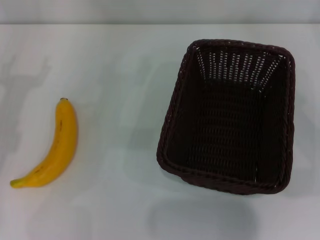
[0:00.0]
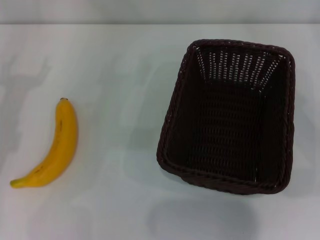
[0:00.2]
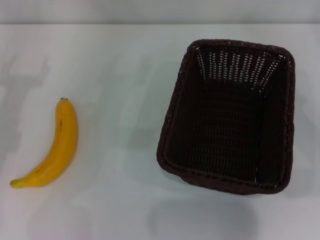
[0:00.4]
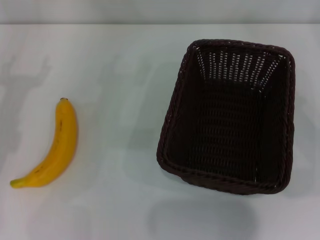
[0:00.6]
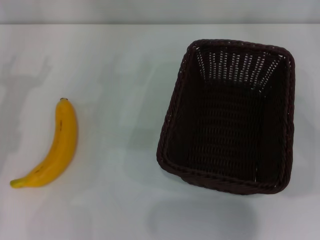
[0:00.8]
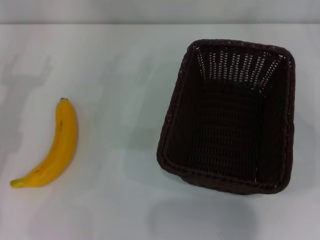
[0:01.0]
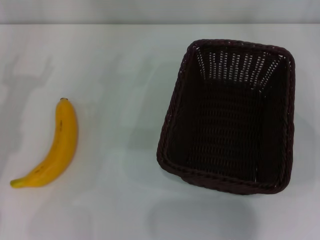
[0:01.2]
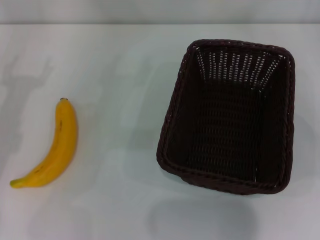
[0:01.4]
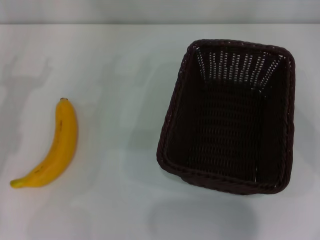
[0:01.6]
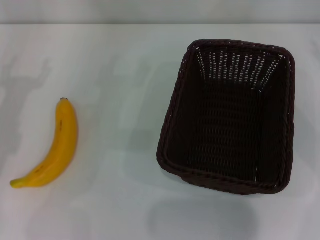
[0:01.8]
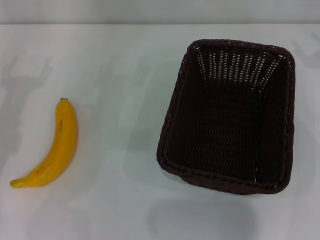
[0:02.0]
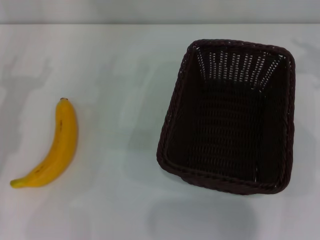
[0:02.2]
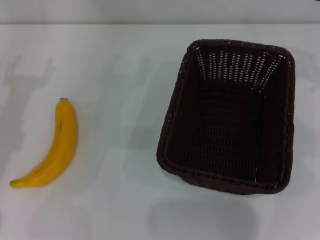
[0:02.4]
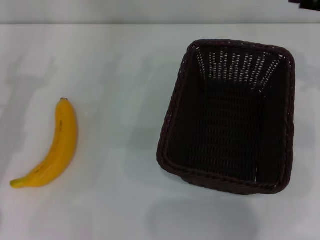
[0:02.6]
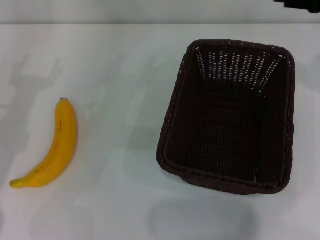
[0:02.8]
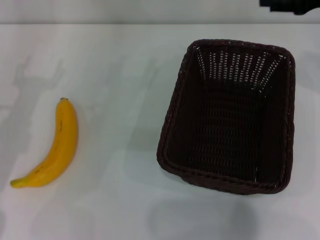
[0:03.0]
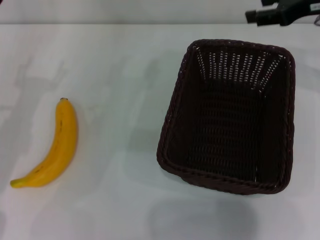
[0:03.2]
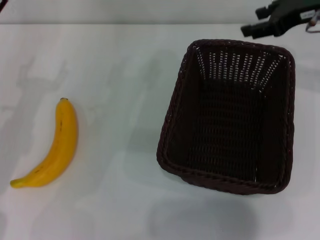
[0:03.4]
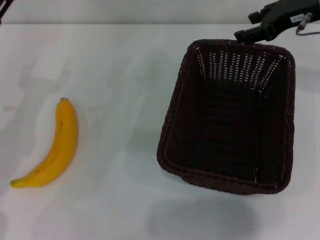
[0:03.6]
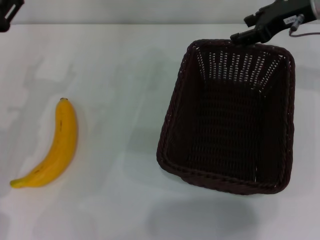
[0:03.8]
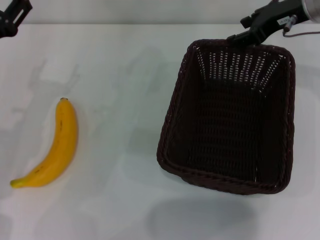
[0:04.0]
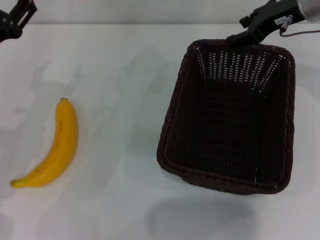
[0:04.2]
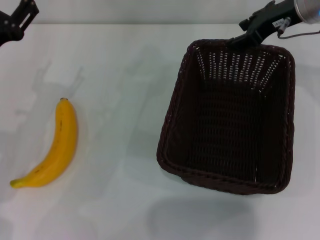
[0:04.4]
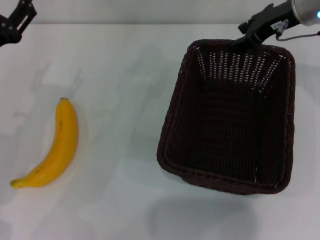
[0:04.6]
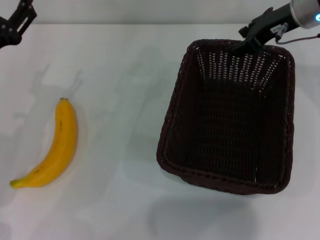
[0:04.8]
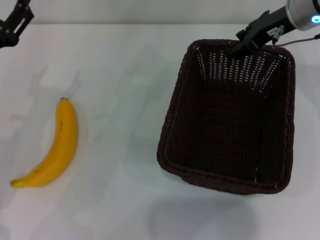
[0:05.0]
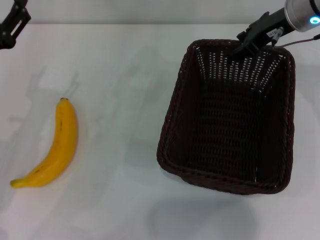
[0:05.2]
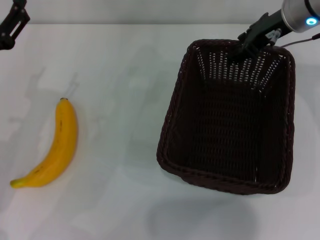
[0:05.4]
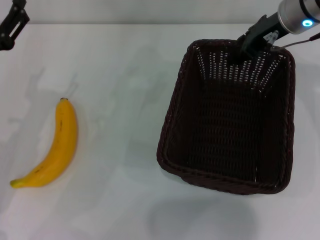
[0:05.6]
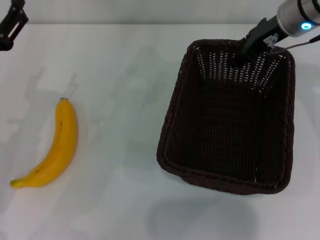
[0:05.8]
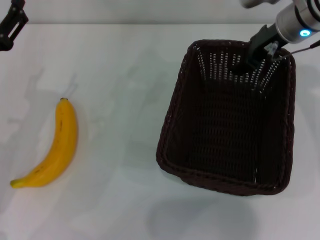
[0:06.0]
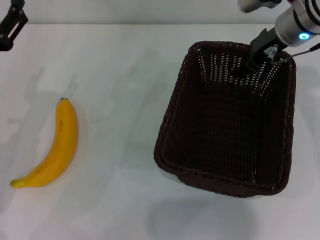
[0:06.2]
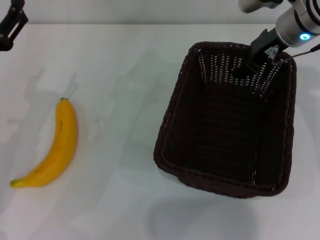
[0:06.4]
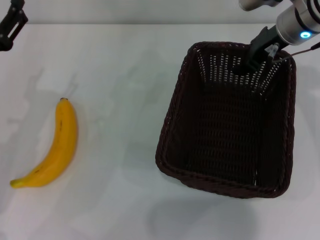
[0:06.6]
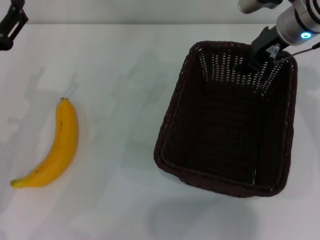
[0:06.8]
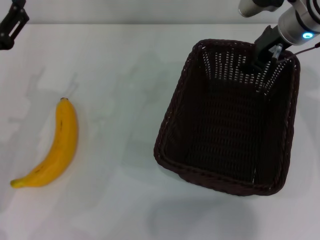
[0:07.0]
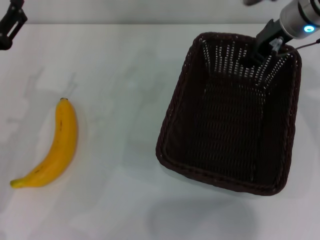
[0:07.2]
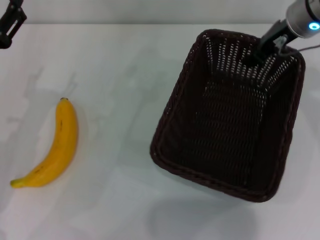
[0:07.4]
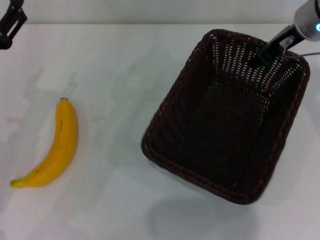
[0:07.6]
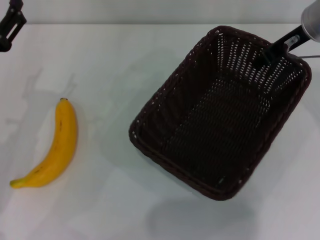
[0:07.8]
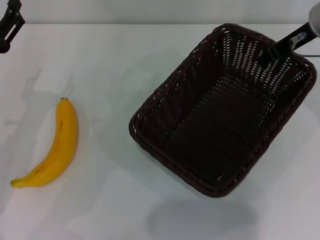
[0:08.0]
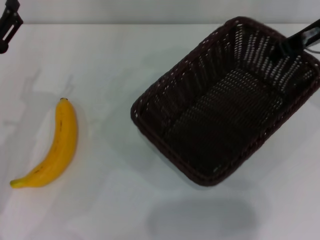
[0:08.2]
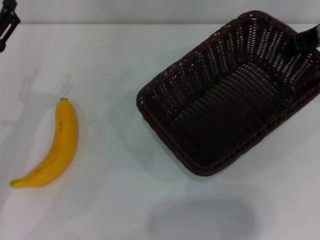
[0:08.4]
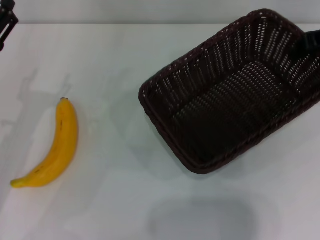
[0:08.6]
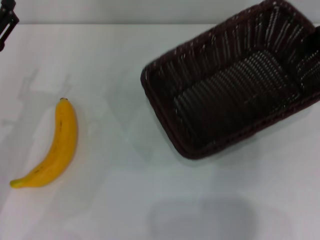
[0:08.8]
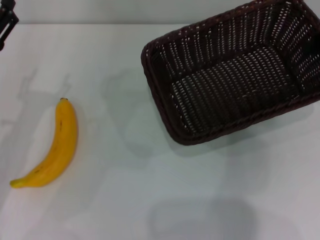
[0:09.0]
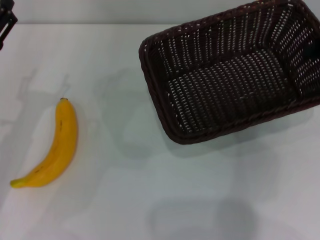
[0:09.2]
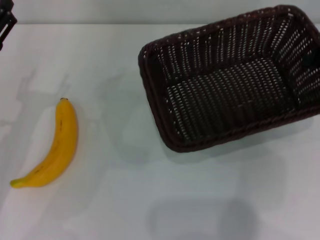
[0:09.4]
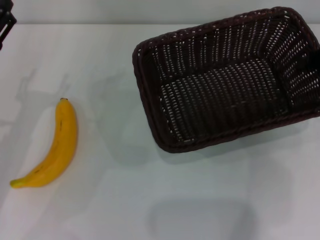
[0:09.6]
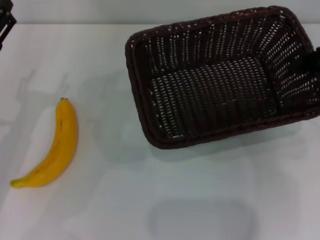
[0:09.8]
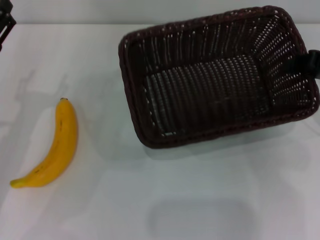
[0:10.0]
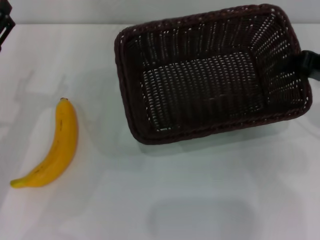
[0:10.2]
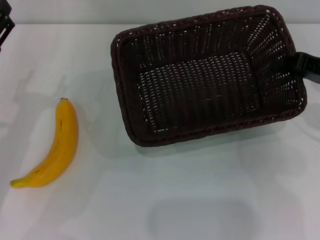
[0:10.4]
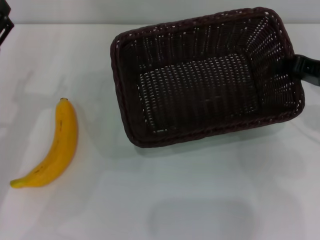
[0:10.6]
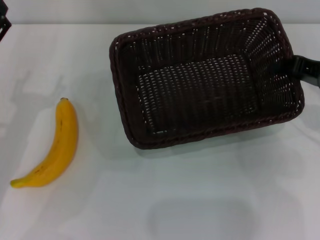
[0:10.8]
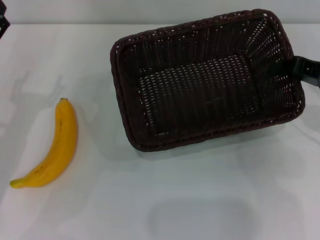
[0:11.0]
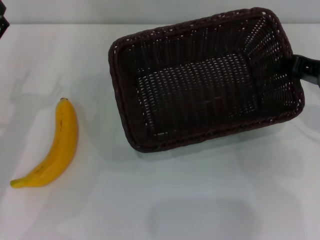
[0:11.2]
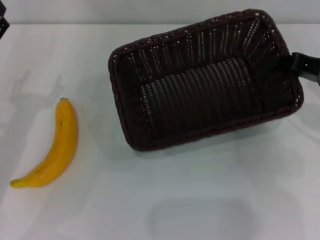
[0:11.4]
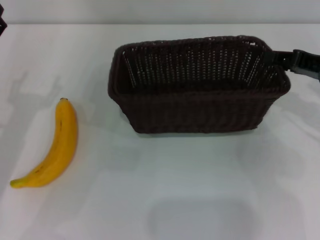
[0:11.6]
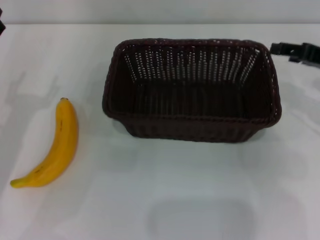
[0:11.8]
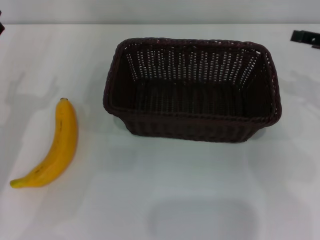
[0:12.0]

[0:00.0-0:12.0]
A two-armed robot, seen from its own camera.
Step, 0:00.0 to 0:08.0: Pick up the dark basket with the right gripper.
Step, 0:08.2 to 0:11.6: Place the dark basket in the center of view with the right gripper.
0:01.6 to 0:03.0: The right gripper shifts about 15 cm to the left, forward and upward.
0:03.0 to 0:04.4: The right gripper is displaced to the left by some 10 cm.
0:04.4 to 0:06.0: The grippers move only a little.
0:06.0 to 0:07.6: The right gripper closes up.
0:07.6 to 0:09.0: The right gripper goes roughly 15 cm to the right and backward.
0:09.0 to 0:10.4: The right gripper moves downward, some 5 cm.
0:10.4 to 0:12.0: The right gripper opens up.

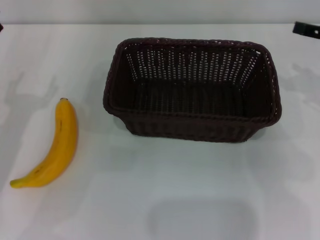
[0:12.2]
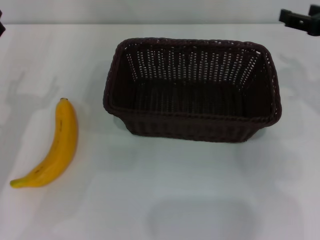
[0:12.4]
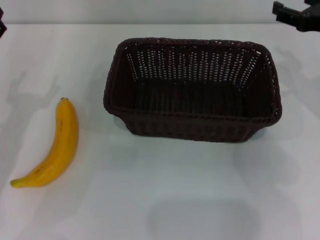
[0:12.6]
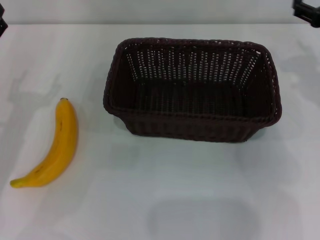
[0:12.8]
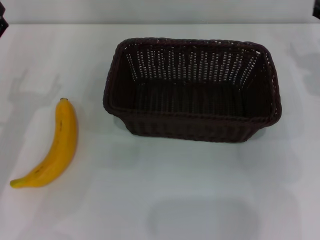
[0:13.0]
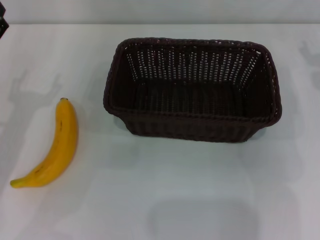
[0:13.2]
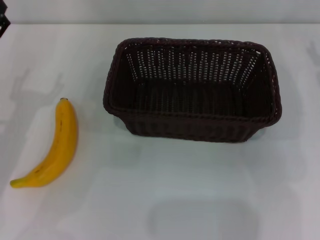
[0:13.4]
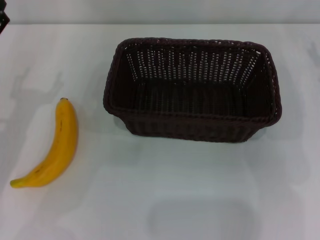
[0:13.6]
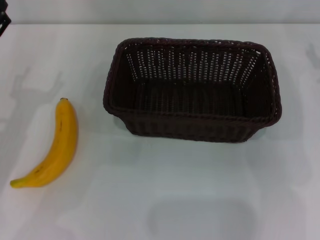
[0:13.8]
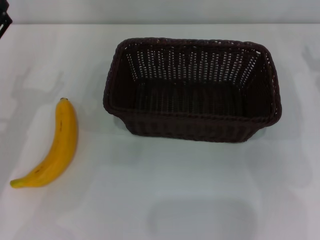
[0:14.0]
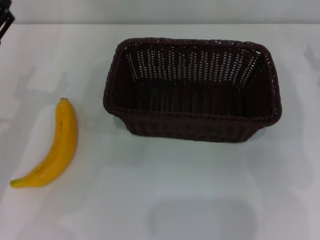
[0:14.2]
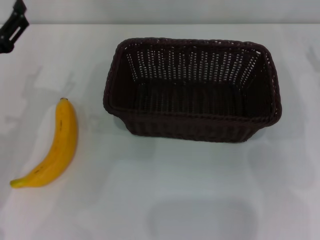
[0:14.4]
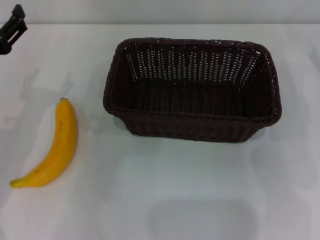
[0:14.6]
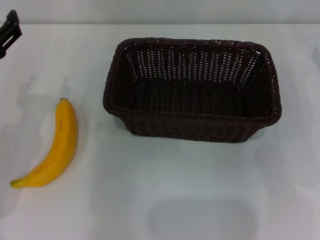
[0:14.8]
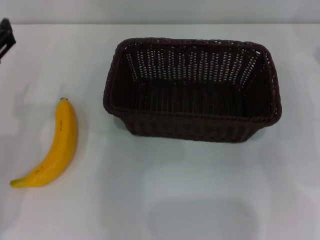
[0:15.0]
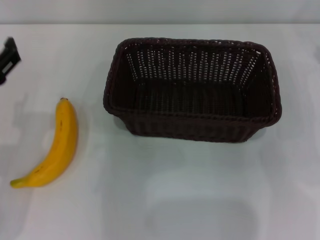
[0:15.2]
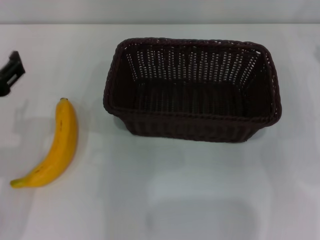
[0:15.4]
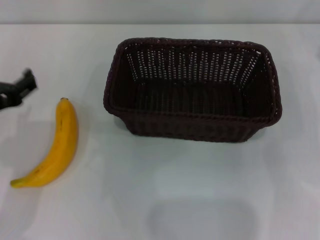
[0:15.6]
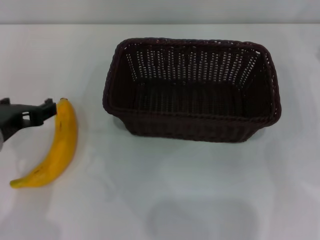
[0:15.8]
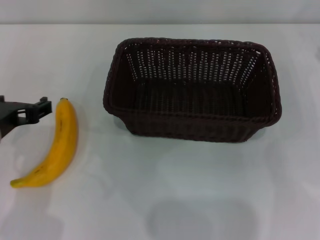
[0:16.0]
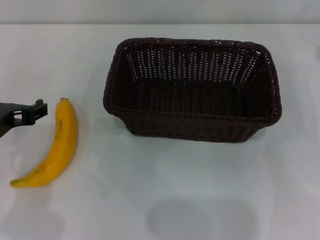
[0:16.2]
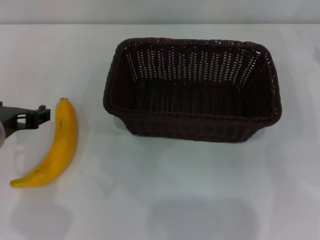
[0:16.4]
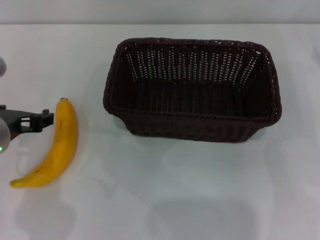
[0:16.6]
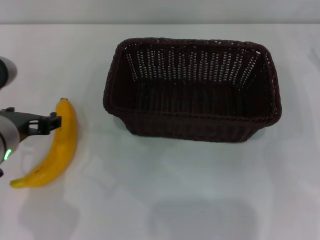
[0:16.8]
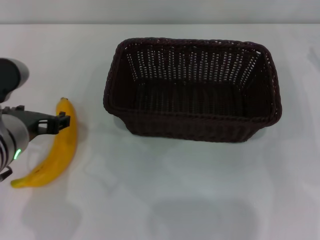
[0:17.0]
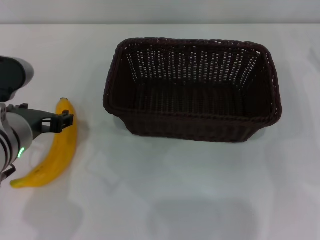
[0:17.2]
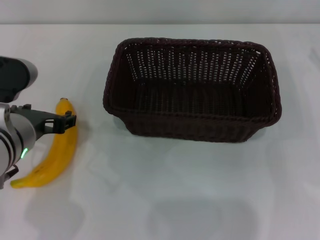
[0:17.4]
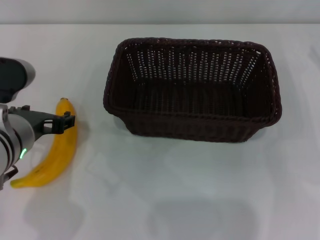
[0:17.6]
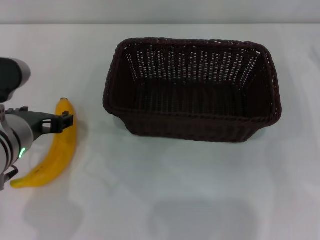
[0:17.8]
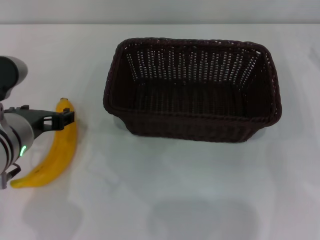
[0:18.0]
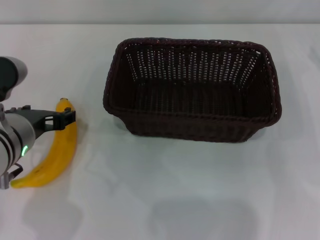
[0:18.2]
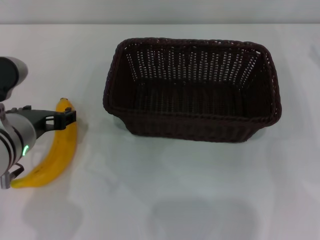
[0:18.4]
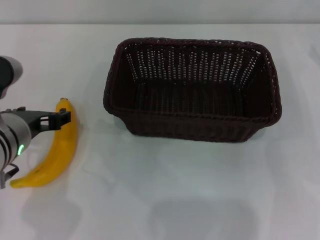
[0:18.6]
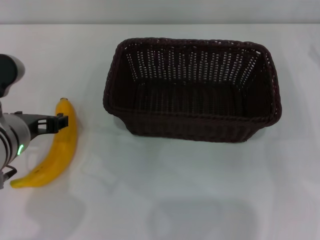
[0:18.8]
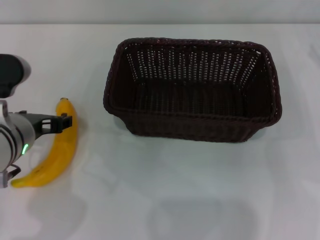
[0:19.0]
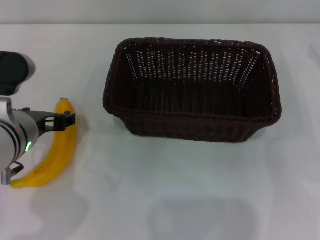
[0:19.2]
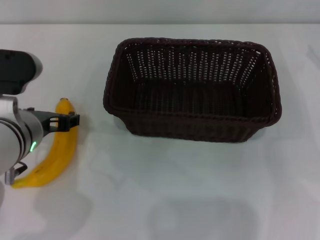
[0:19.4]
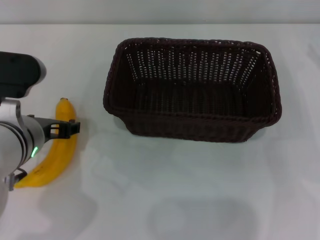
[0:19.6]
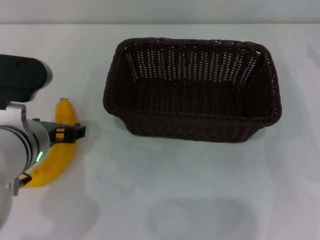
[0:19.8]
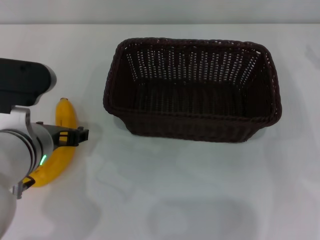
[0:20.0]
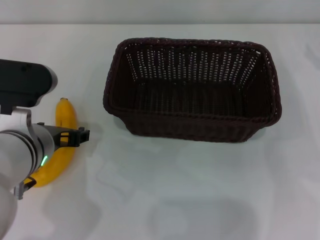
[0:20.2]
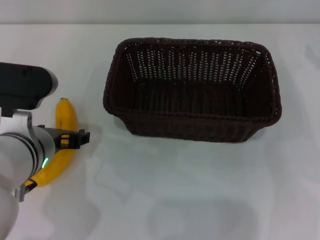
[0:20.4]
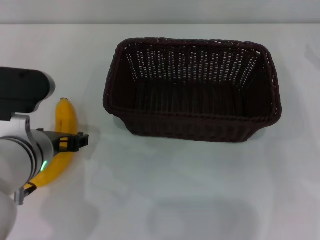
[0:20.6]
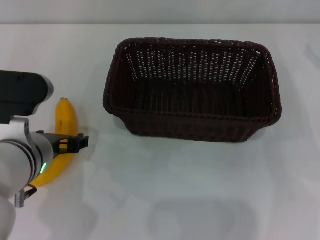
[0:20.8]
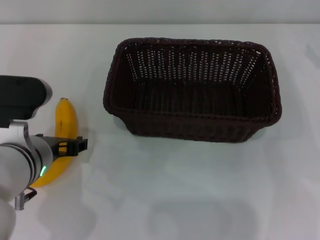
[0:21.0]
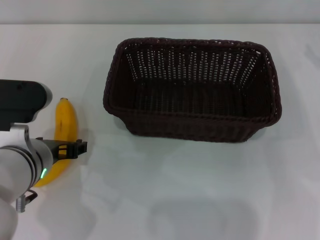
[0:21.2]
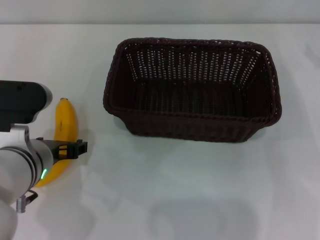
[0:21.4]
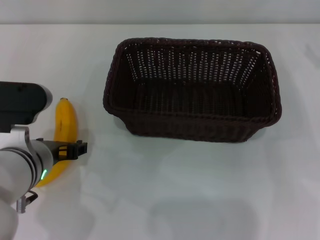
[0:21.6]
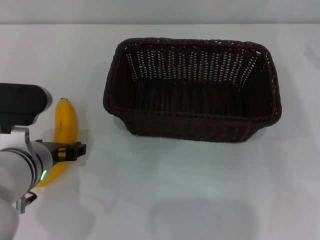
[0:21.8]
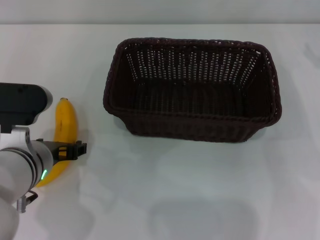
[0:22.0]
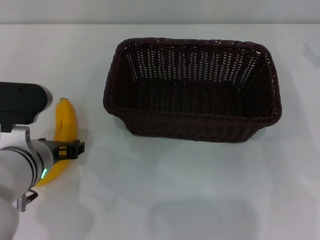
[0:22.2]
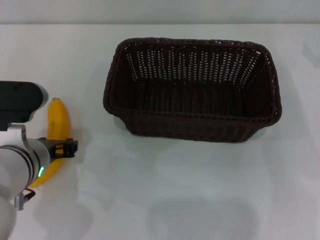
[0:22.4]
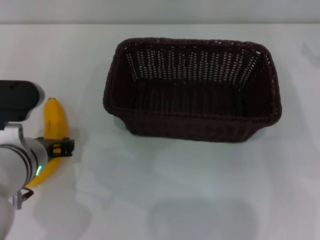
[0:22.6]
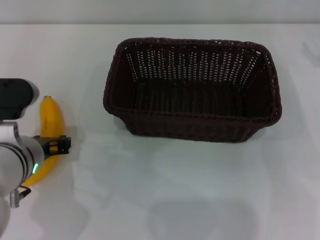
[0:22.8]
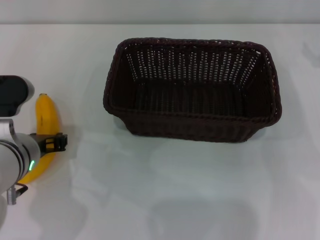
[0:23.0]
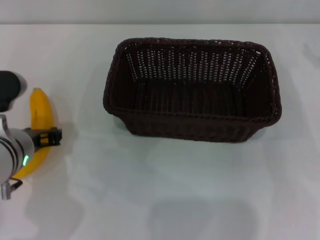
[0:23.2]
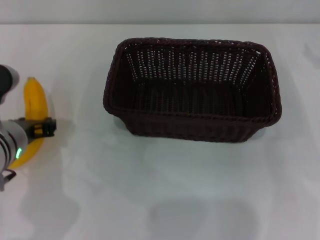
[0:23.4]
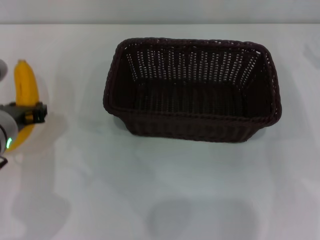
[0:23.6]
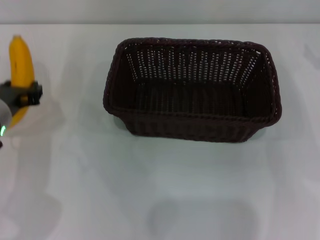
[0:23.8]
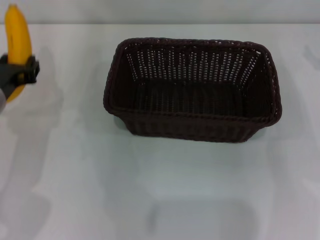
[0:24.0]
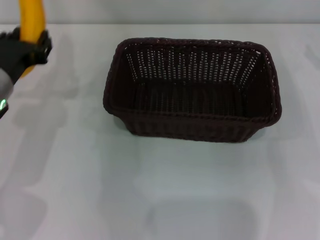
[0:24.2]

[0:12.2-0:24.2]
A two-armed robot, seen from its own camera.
Step, 0:12.2 to 0:23.2: Pick up the banana with the left gripper.
0:13.8 to 0:15.2: The left gripper travels backward and upward by about 10 cm.
0:15.2 to 0:16.6: The left gripper ends up about 5 cm from where it was.
0:16.6 to 0:21.2: The grippers make only small movements.
0:21.2 to 0:22.6: The left gripper closes up.
0:22.6 to 0:24.2: The left gripper moves forward and to the left, approximately 10 cm.
